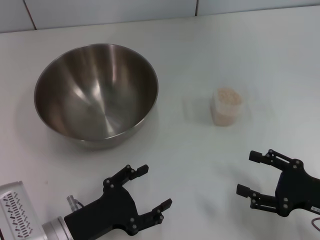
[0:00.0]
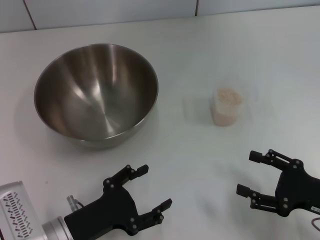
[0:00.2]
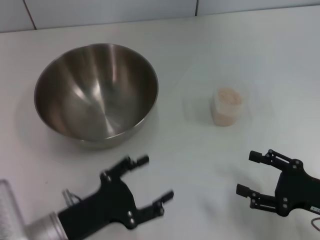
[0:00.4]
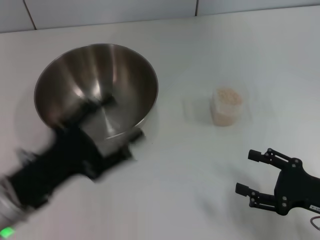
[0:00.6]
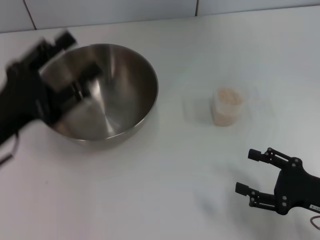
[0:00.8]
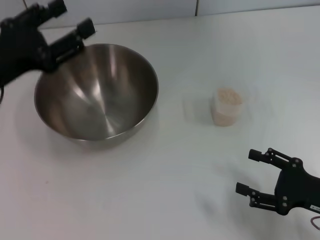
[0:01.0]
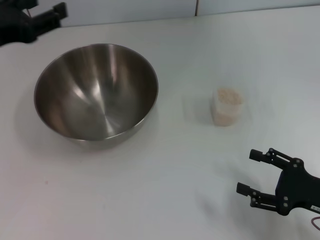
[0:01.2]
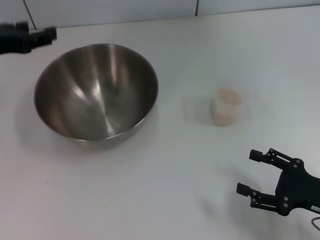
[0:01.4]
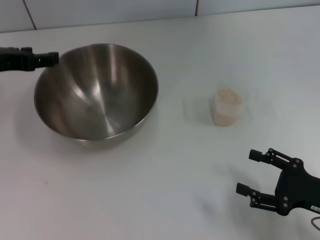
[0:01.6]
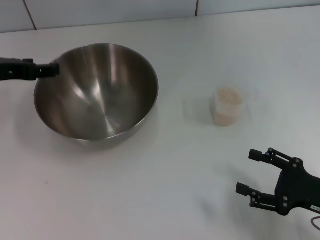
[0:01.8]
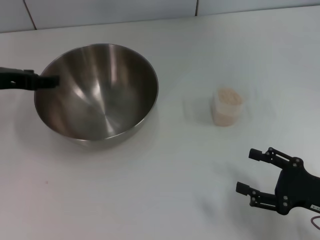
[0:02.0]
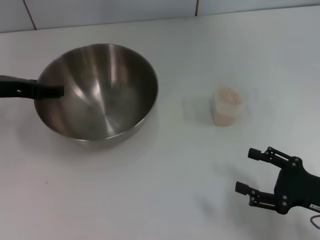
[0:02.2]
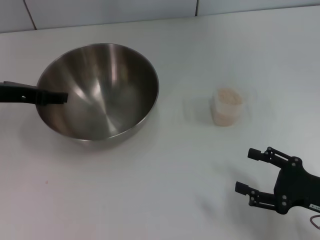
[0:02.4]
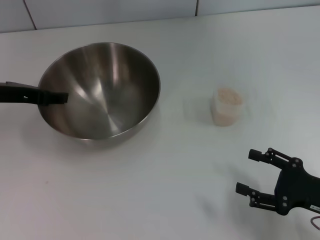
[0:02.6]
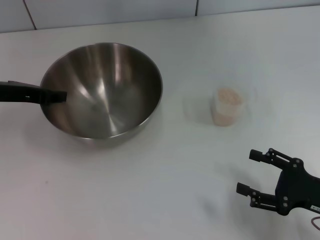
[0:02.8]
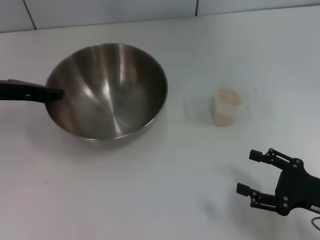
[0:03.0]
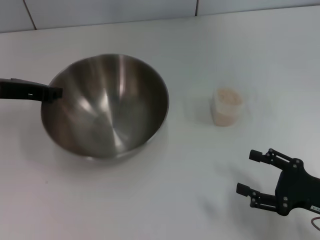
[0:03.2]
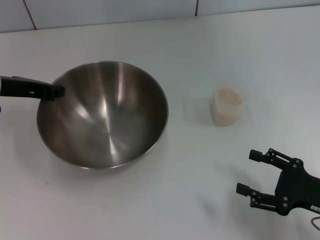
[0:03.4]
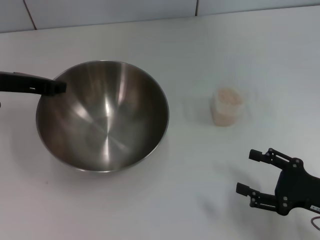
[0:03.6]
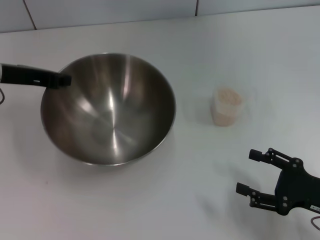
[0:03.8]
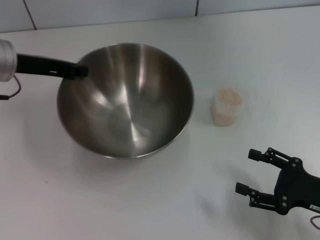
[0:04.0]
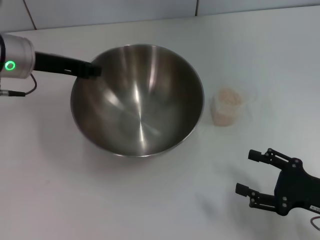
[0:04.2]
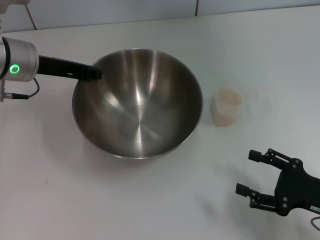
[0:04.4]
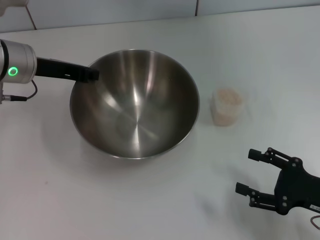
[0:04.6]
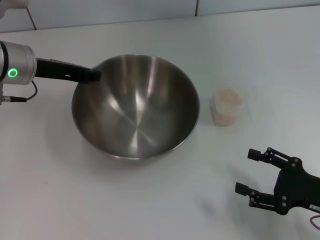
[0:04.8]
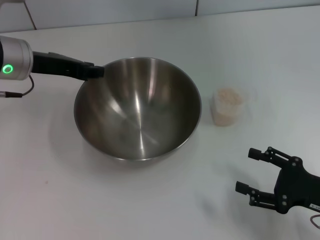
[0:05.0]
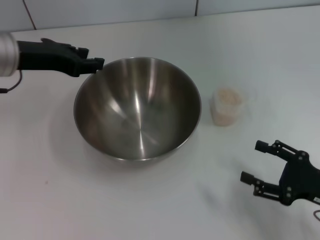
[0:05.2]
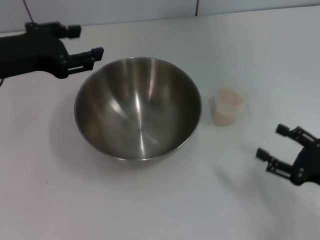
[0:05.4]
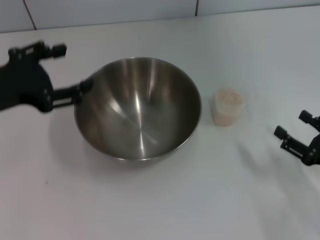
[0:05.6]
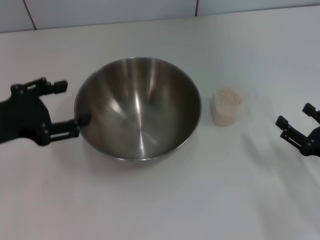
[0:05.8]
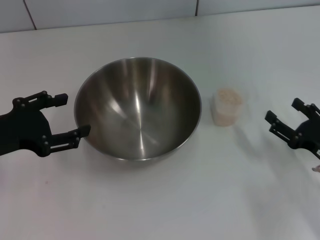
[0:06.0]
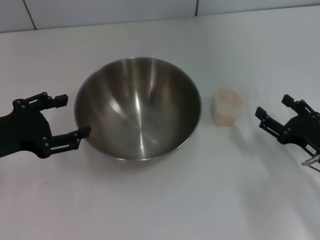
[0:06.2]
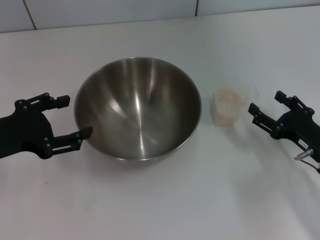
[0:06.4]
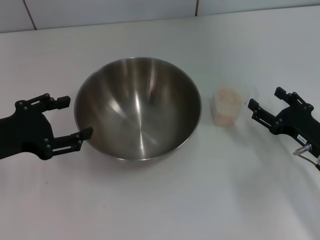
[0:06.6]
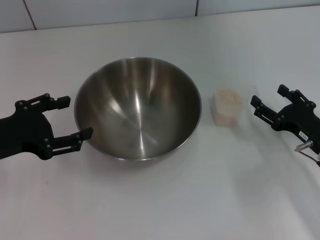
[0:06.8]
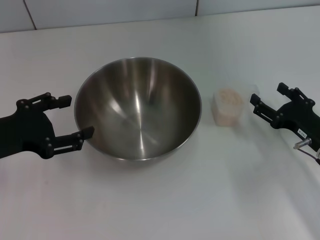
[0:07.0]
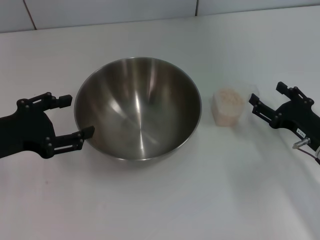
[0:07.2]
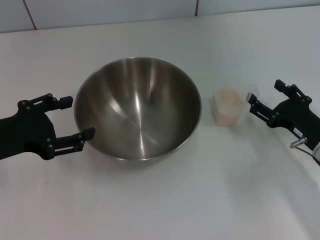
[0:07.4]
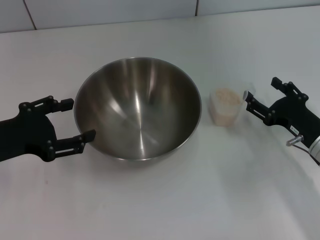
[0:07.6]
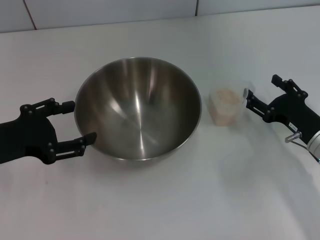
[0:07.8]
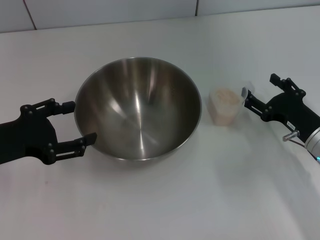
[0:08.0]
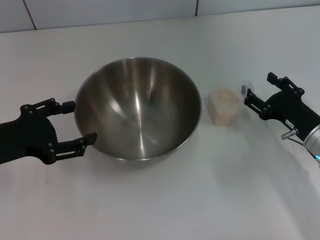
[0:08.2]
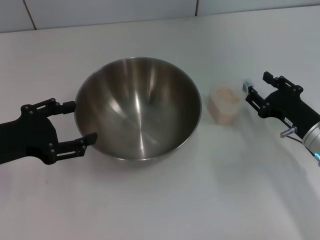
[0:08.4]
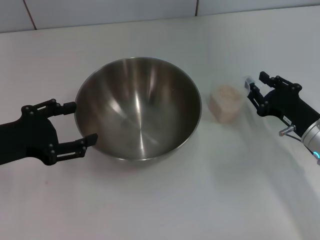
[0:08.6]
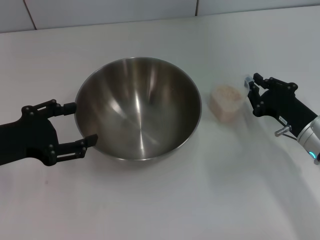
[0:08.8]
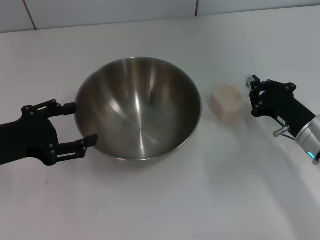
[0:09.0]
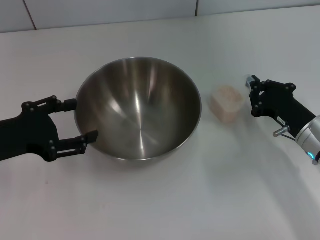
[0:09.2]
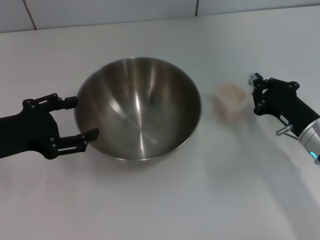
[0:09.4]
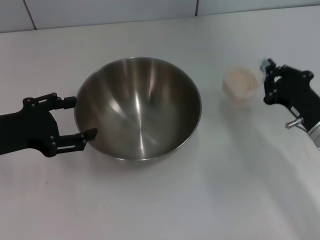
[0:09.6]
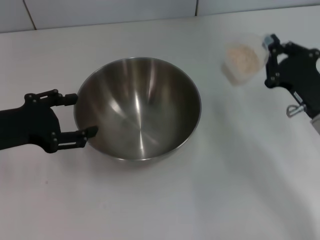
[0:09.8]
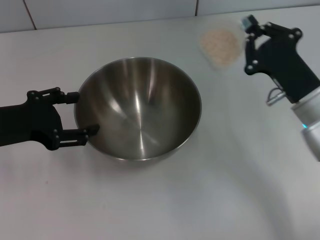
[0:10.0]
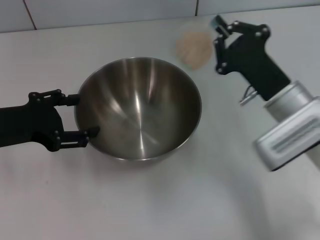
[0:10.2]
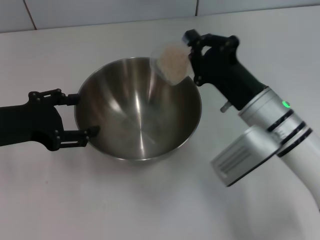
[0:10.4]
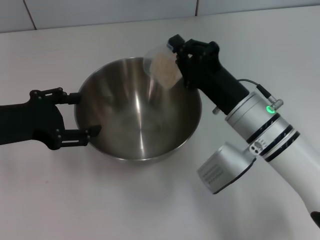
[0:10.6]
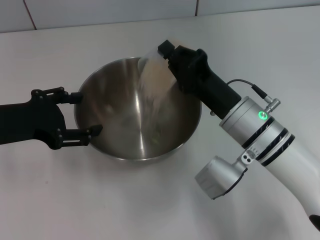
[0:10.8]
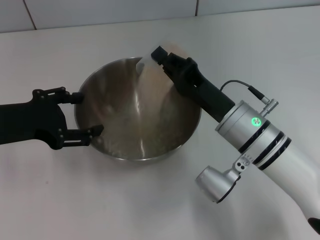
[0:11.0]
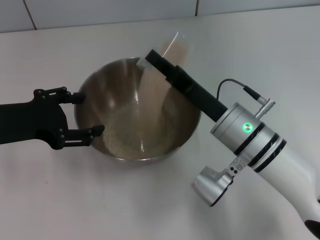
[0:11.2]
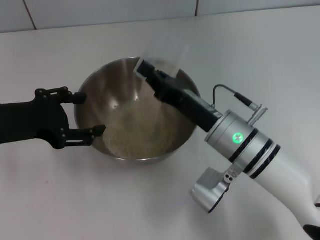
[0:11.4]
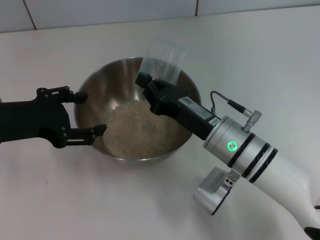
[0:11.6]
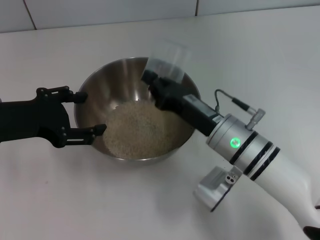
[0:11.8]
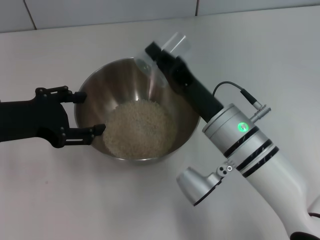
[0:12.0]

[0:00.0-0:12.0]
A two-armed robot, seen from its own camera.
Task of the whole recording: Place the bowl in the middle of the table with one hand and pour the rice from the grain cup into it with the other hand.
Step, 0:00.0 to 0:03.6: Pick up the bowl with the left gripper.
Step, 0:03.8 to 0:05.4: Place the bowl in the center of view with the left gripper.
Step, 0:05.6 to 0:09.8: Pick up the cup with rice in it with the right gripper.
0:00.0 to 0:01.6: The left gripper heads upward, forward and to the left, covering about 25 cm.
0:01.6 to 0:03.0: The left gripper closes.
0:03.0 to 0:04.4: The left gripper moves to the right, approximately 5 cm, and closes up.
0:04.4 to 0:06.0: The left gripper moves backward and to the left, approximately 15 cm, and opens up.
0:06.0 to 0:07.6: The right gripper moves forward, approximately 5 cm.
0:07.6 to 0:09.0: The right gripper closes.
0:09.0 to 0:10.4: The right gripper heads to the left and upward, covering about 10 cm.
0:10.4 to 0:12.0: The right gripper travels to the left by roughly 5 cm.

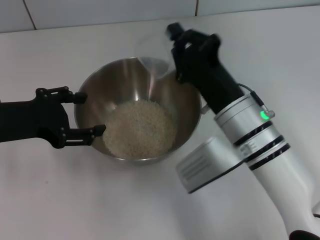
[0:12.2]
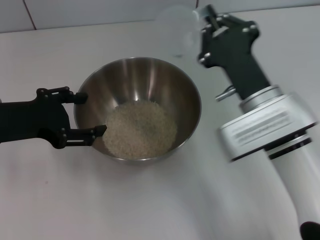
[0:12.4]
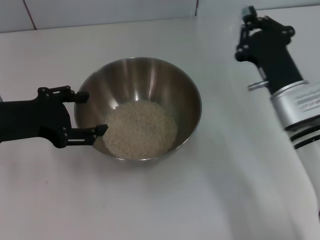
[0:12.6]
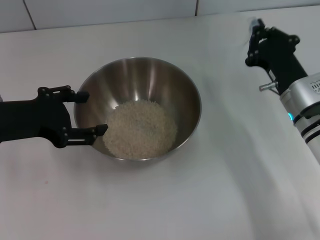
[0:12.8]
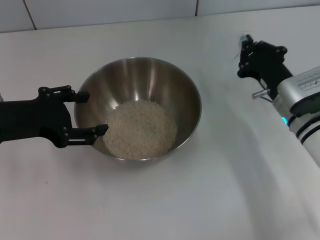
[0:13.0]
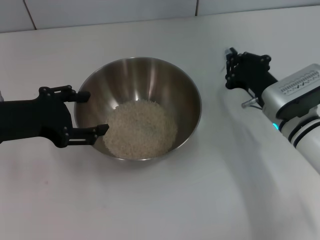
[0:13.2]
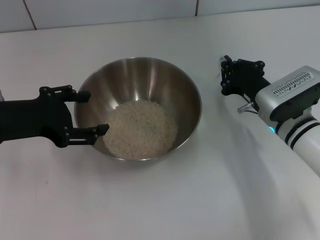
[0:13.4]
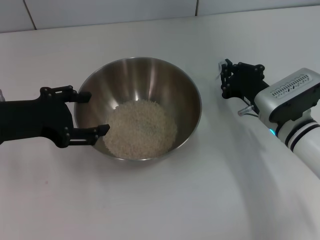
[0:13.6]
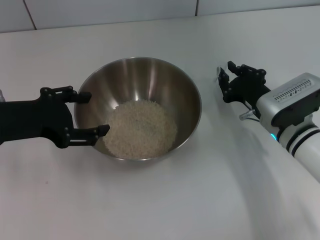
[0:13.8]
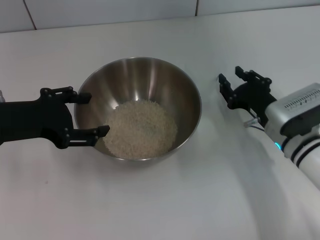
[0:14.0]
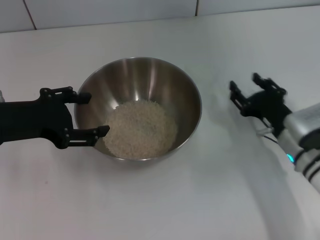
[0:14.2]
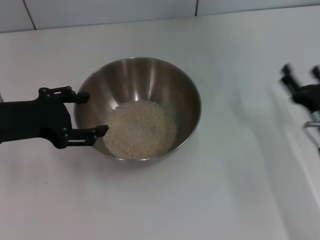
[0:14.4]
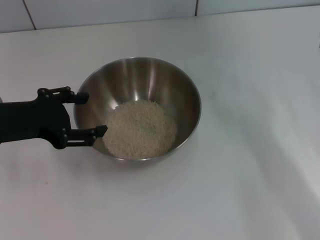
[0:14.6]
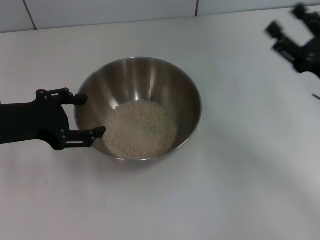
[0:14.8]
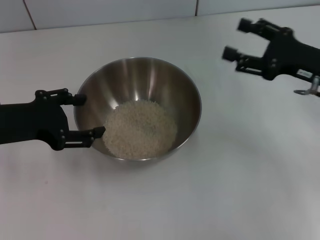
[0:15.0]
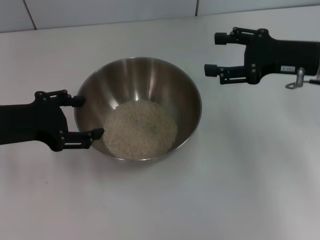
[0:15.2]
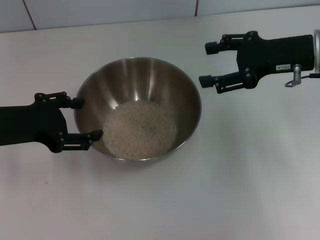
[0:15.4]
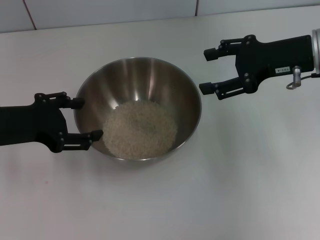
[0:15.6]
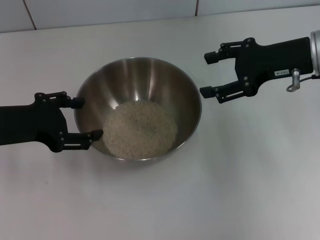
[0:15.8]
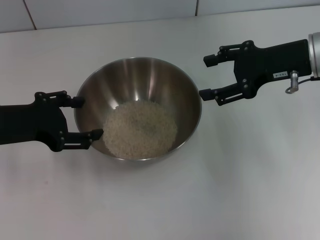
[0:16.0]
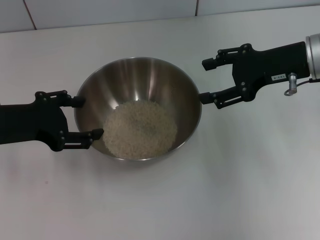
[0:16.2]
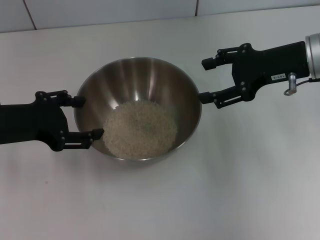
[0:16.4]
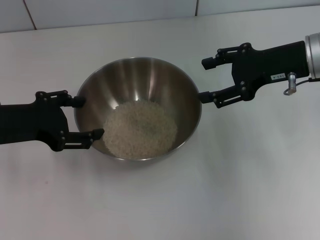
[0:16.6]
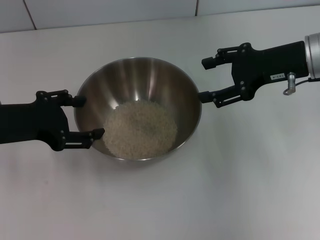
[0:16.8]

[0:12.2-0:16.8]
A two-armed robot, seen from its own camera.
Task of the whole recording: Place the bowl in the middle of the table with one hand and pour the rice from the grain cup into it with the other hand.
Step, 0:12.6 to 0:14.2: Place the cup on the table with the right gripper.
0:12.2 to 0:13.8: The right gripper goes roughly 10 cm to the right and downward.
0:13.8 to 0:15.2: The right gripper travels upward and to the right by about 15 cm, and opens.
0:15.2 to 0:16.8: The grippers move only a little.
